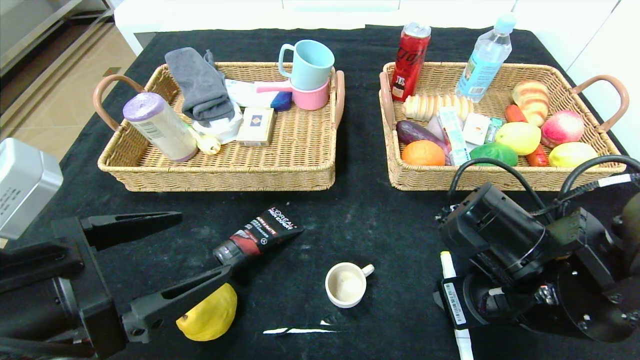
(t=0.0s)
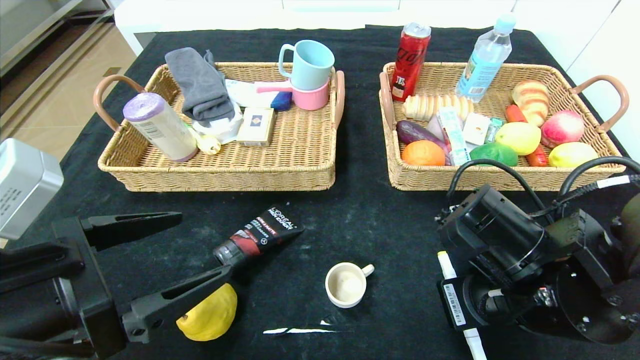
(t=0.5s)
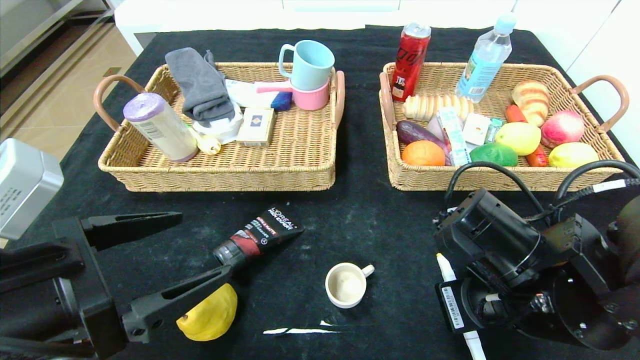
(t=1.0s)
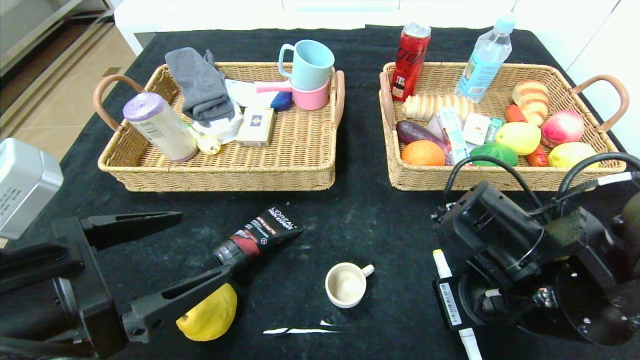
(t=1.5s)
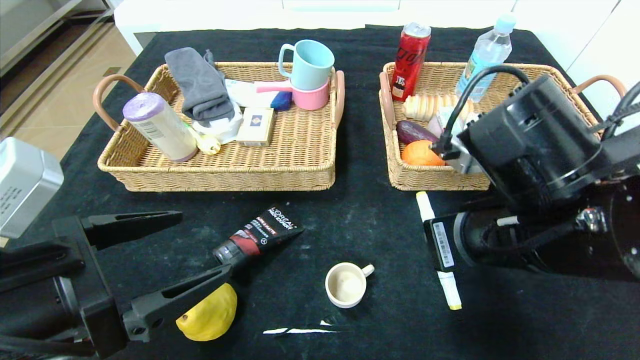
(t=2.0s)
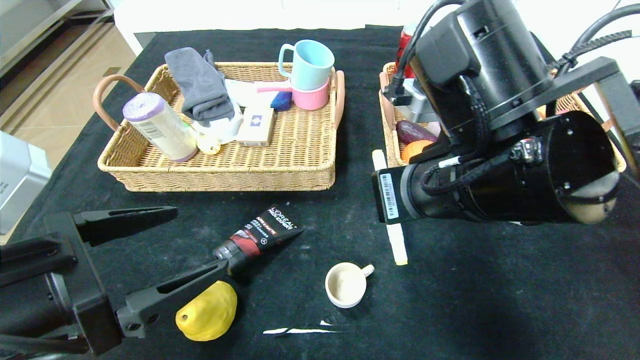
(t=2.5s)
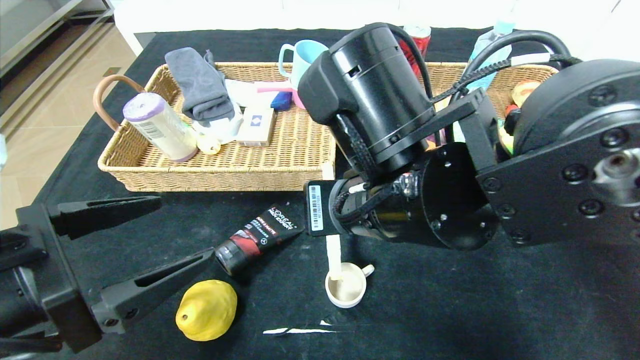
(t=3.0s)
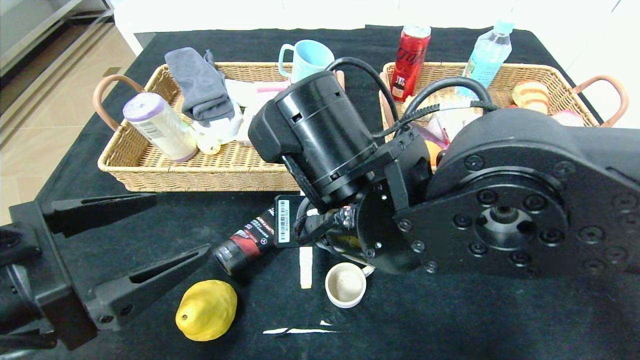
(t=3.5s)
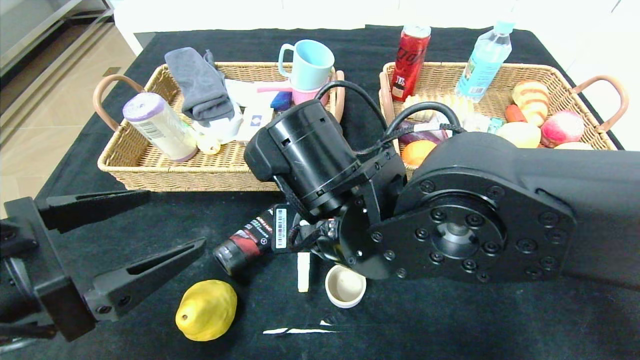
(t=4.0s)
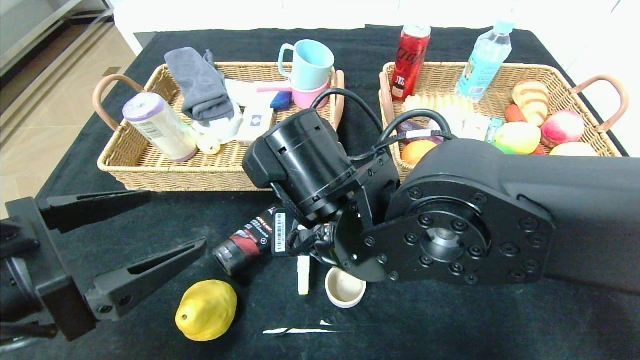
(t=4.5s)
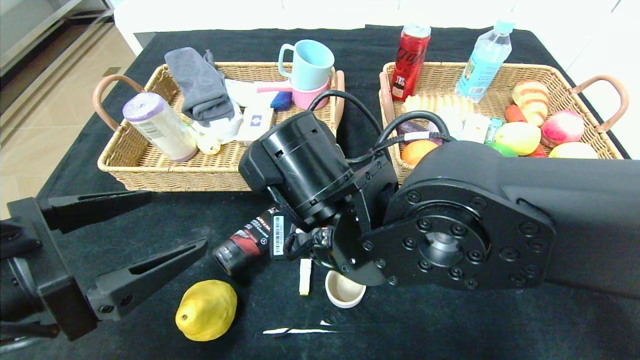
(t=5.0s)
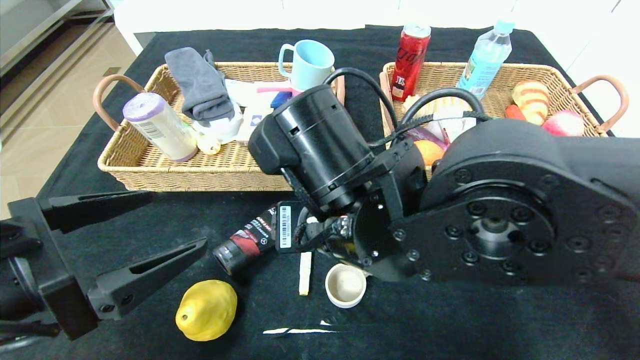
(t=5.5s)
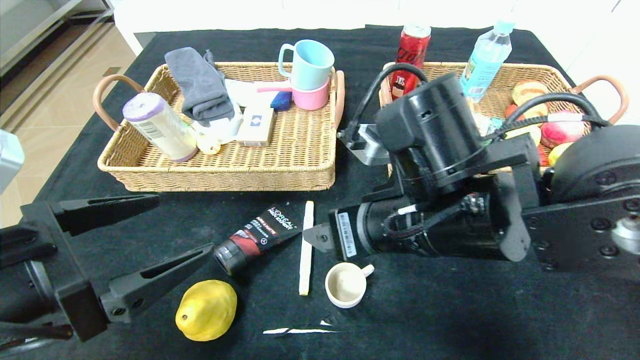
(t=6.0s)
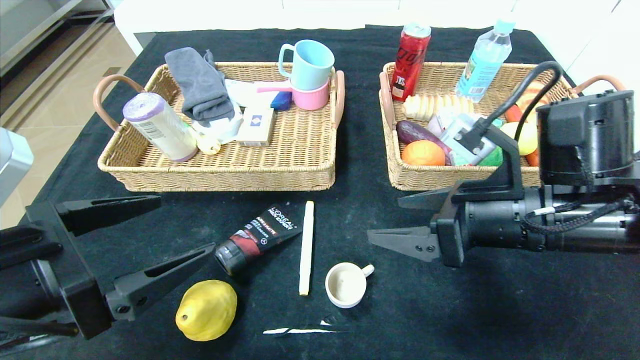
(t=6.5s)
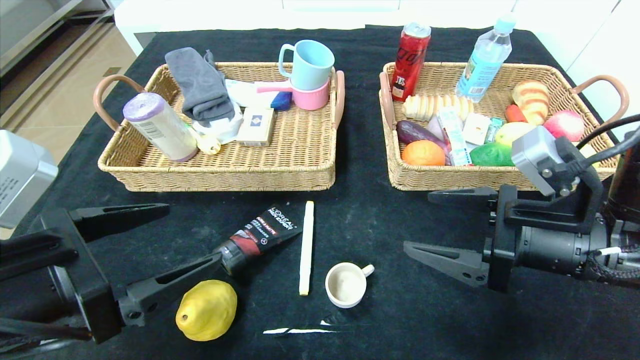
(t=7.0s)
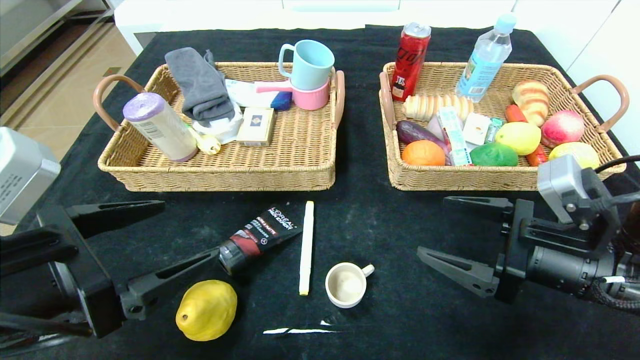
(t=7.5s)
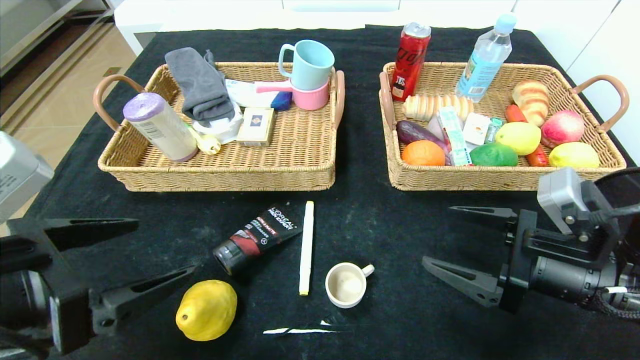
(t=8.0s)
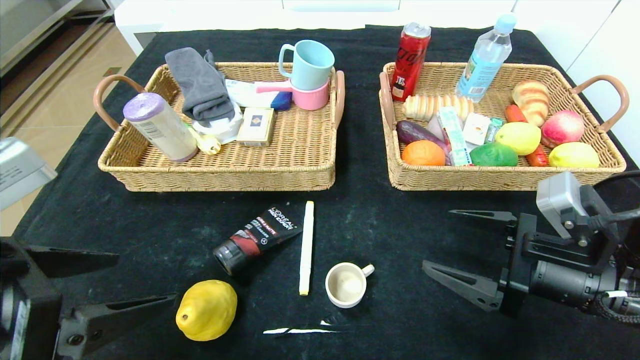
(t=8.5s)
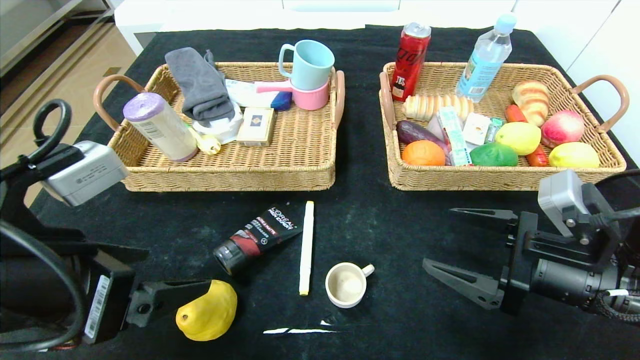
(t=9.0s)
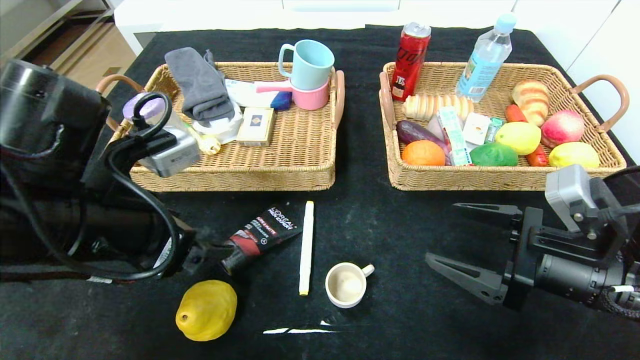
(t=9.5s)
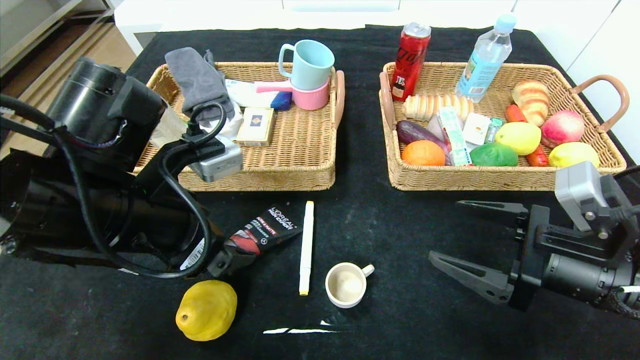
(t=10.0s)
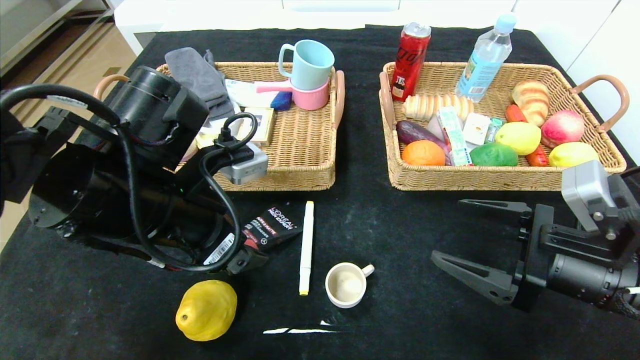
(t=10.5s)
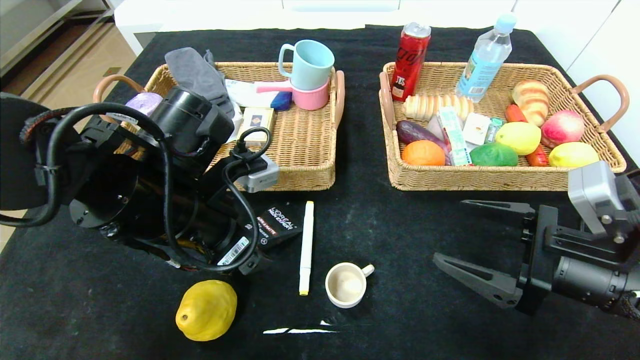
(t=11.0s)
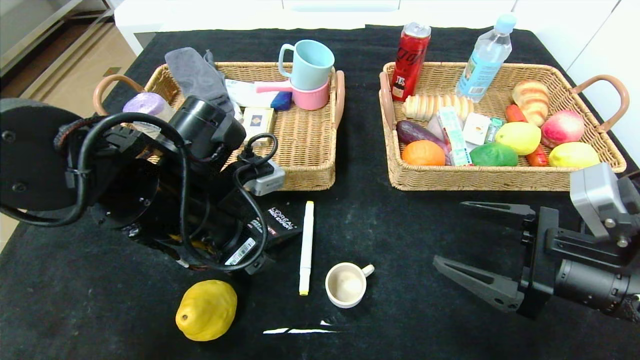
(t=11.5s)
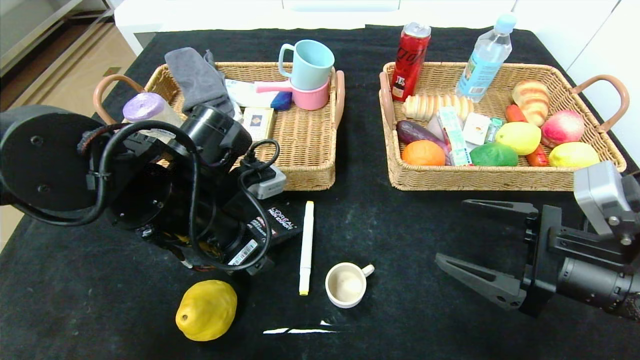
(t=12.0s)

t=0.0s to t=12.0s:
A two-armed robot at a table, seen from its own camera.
Step, t=0.0s to t=5.5s: Place the yellow marker in the center of the table.
t=0.0s to t=2.0s: The right gripper goes roughly 5 cm upward, and closes.
t=2.0s to t=4.0s: The right gripper heads to the left, covering about 15 cm.
t=4.0s to t=6.0s: The right gripper heads to the right, covering roughly 10 cm, and opens up.
t=6.0s to t=8.0s: The right gripper travels to the right and downward by roughly 20 cm.
t=8.0s to t=10.0s: The left gripper shifts roughly 10 cm forward and to the right.
t=10.0s to t=12.0s: The left gripper moves some 5 cm.

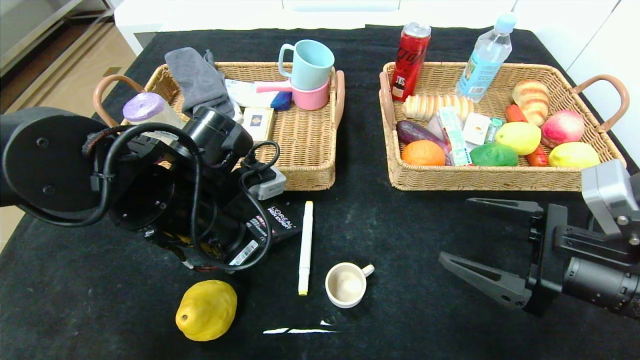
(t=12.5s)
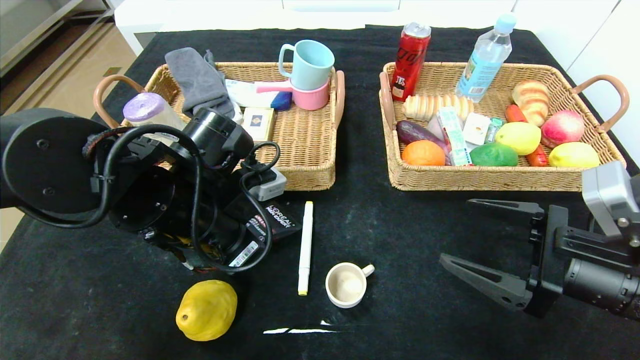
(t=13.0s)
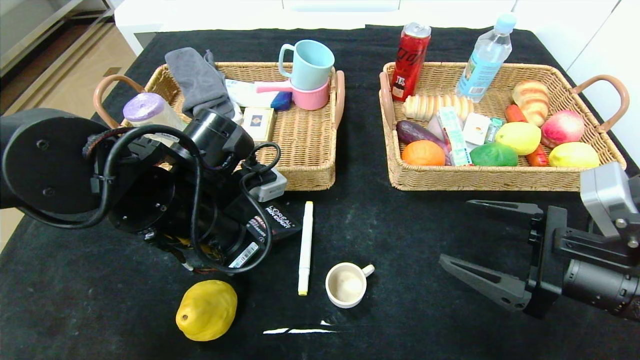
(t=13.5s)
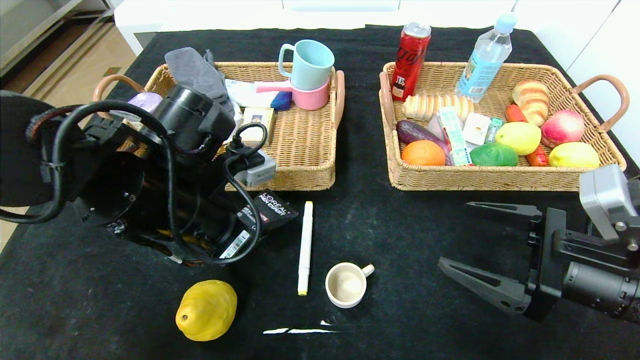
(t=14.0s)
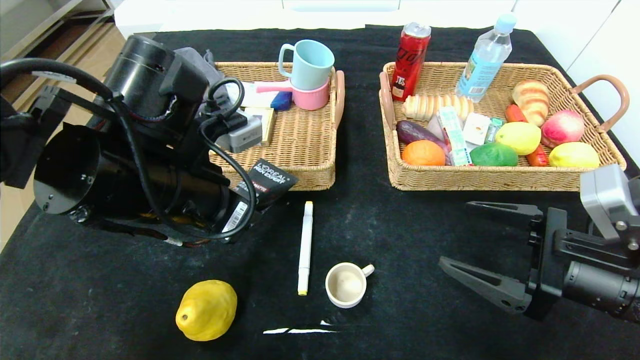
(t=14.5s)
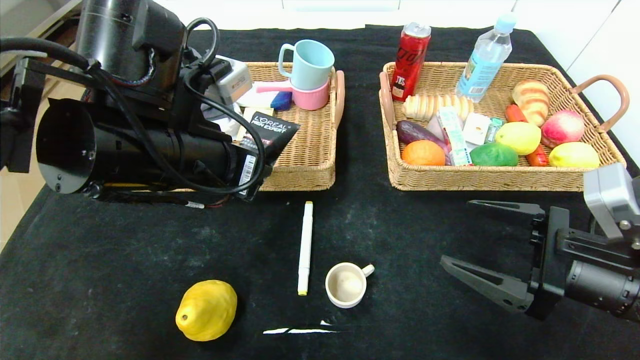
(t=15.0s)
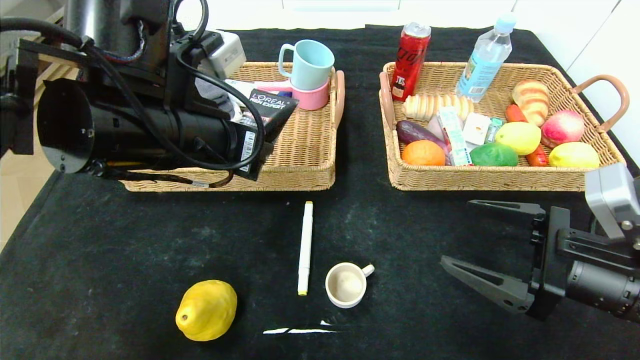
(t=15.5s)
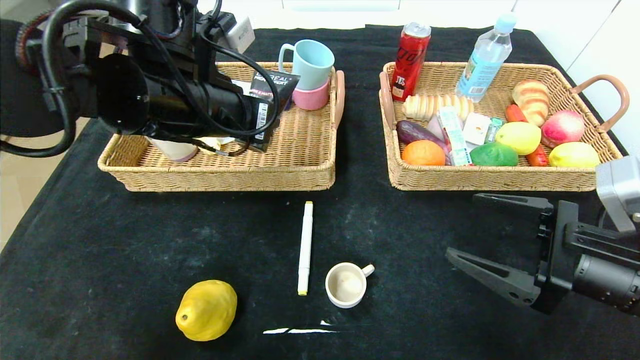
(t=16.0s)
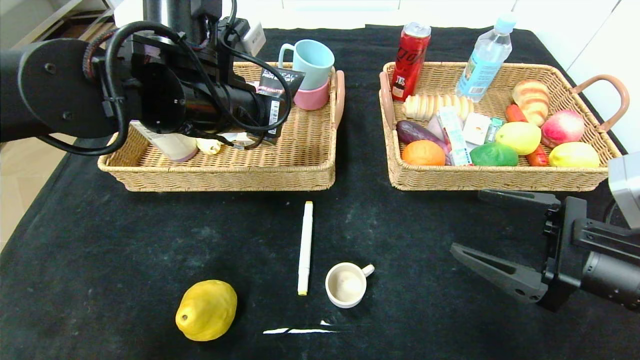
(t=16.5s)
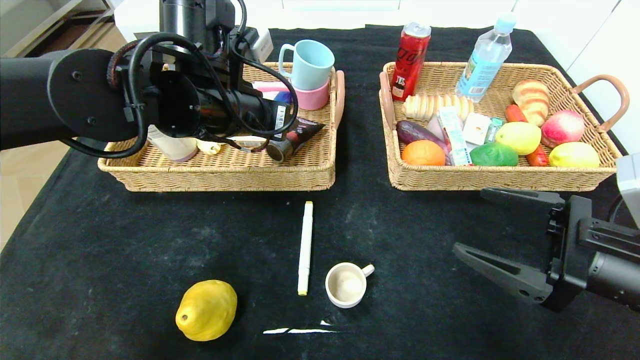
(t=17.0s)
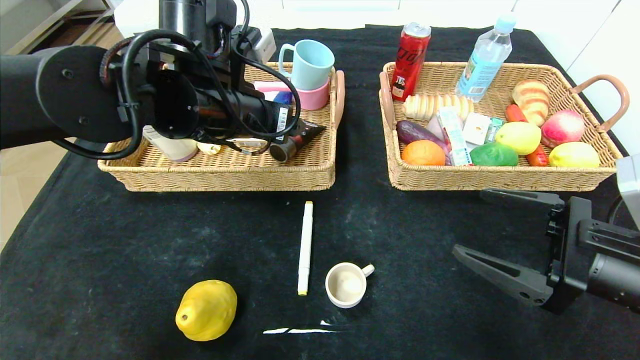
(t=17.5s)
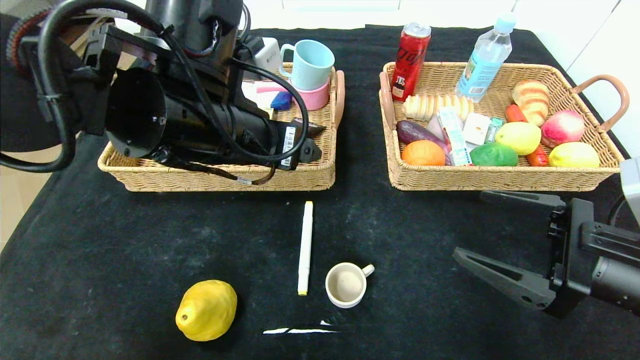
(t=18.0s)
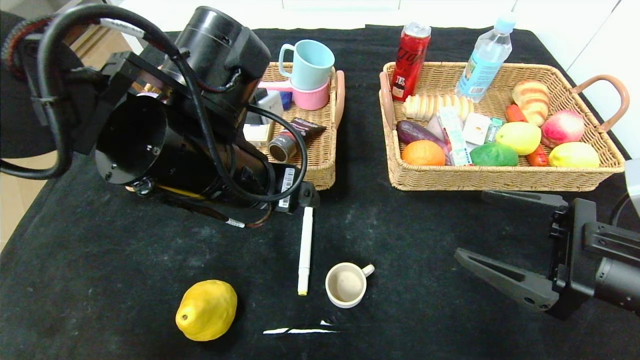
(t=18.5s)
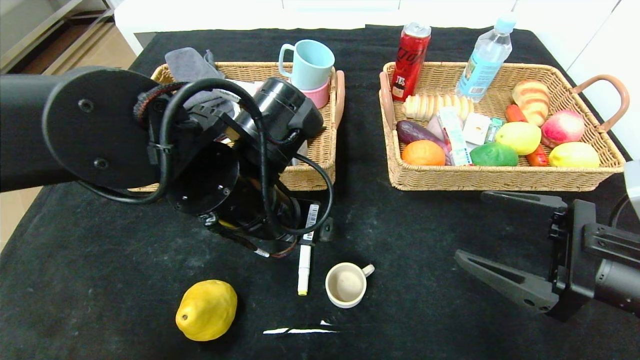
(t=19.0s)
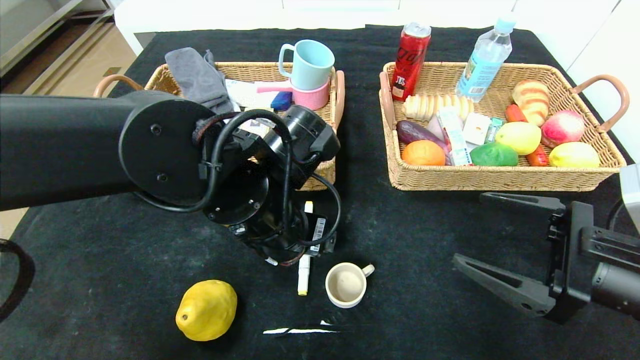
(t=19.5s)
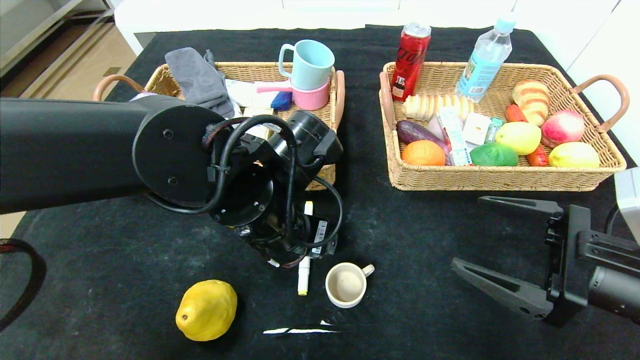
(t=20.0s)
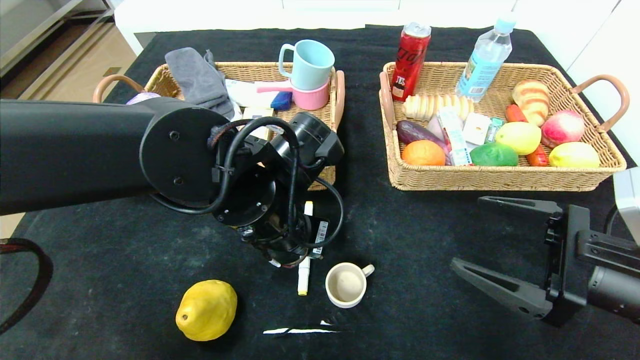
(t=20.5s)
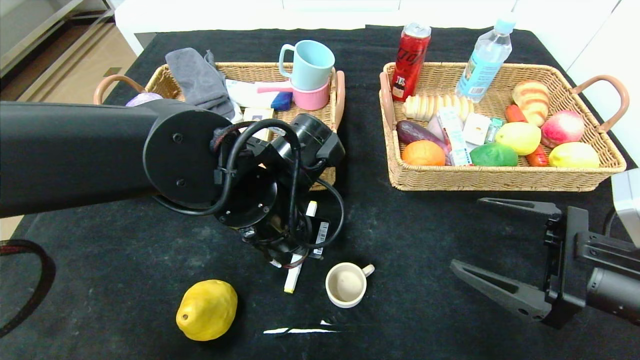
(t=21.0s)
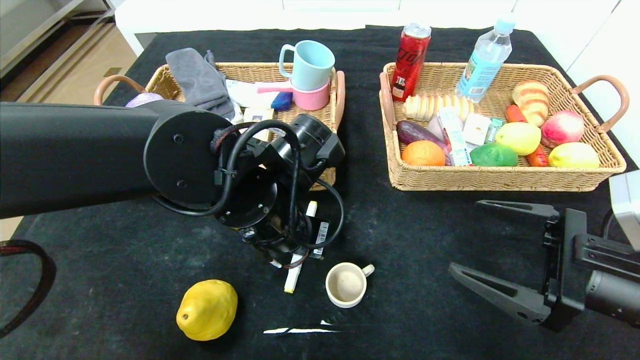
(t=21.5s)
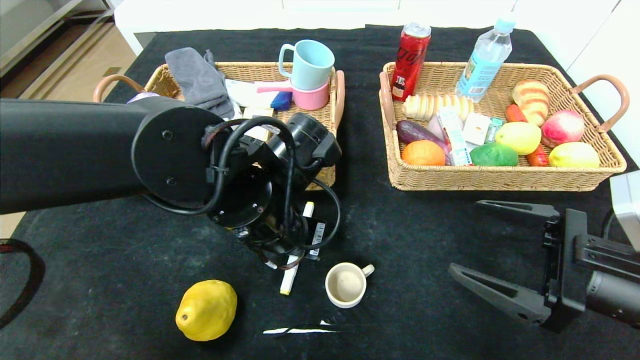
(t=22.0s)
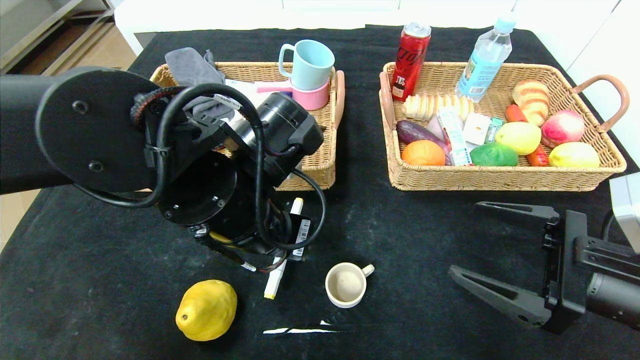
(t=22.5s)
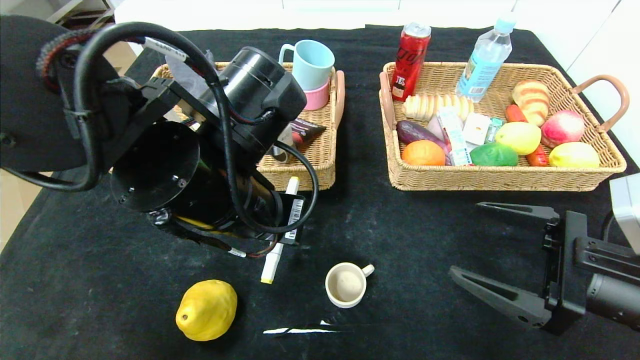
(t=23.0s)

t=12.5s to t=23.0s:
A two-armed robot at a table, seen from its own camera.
Step, t=12.5s to t=17.0s: Grasp the soft cleanser and put it in the left basket.
t=12.5s to t=14.5s: The left gripper moves about 5 cm.
t=14.5s to t=16.5s: The left gripper goes approximately 10 cm forward.
t=16.5s to t=19.0s: The left gripper heads backward, downward and to the right, covering some 10 cm, and opens up.
t=19.0s to t=21.0s: The left gripper closes its fingers.
t=21.0s to t=23.0s: The left gripper is displaced upward by roughly 5 cm.
